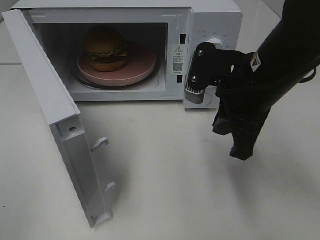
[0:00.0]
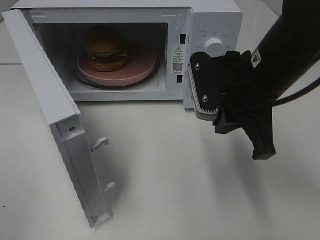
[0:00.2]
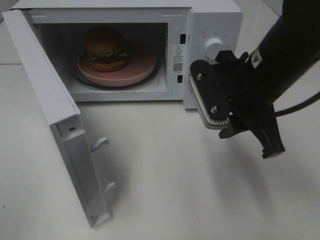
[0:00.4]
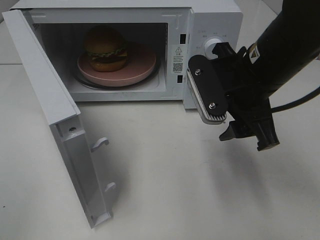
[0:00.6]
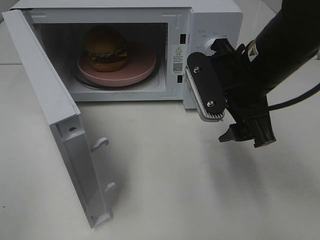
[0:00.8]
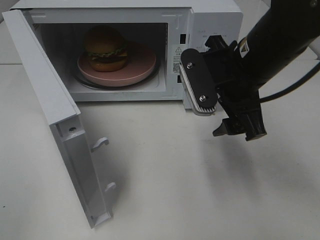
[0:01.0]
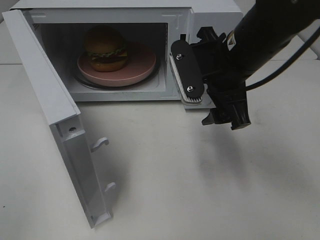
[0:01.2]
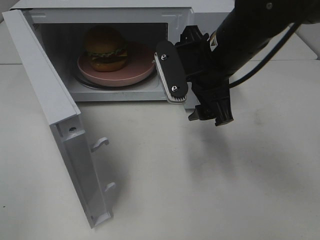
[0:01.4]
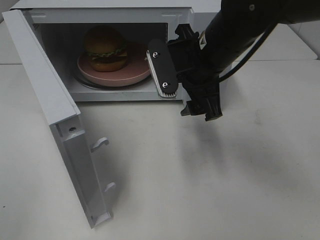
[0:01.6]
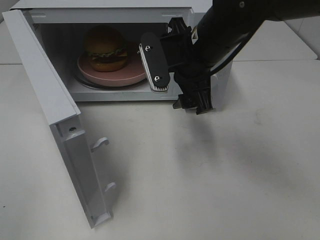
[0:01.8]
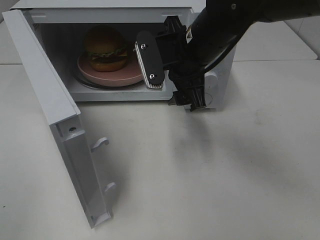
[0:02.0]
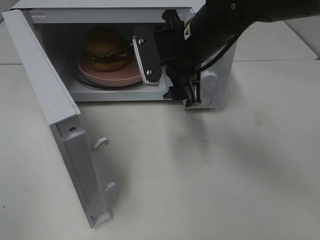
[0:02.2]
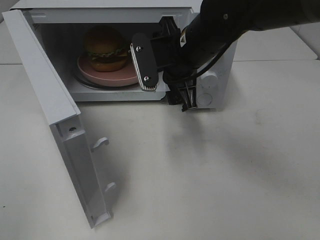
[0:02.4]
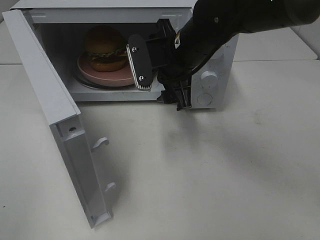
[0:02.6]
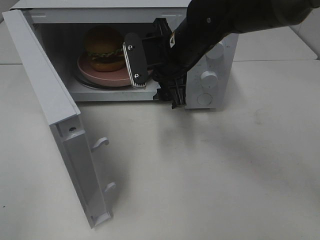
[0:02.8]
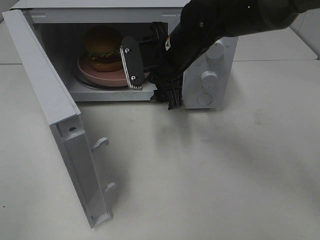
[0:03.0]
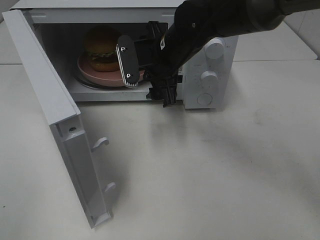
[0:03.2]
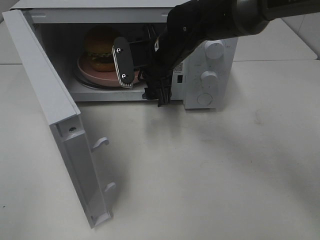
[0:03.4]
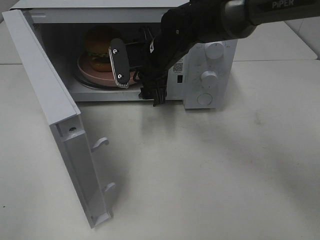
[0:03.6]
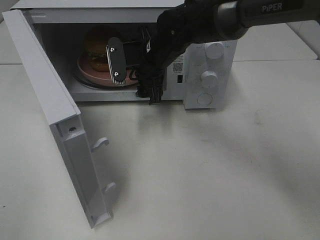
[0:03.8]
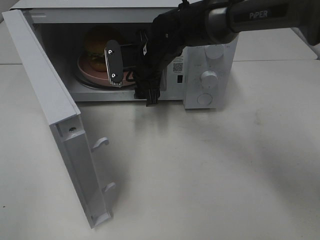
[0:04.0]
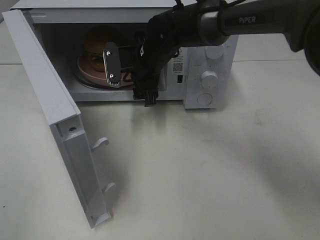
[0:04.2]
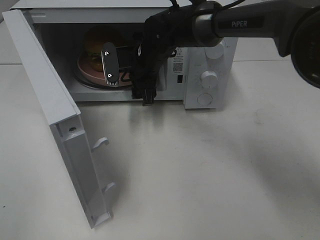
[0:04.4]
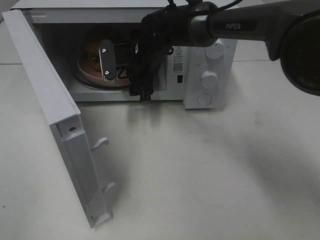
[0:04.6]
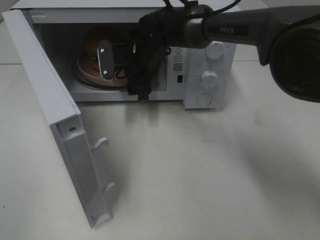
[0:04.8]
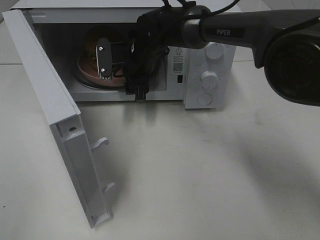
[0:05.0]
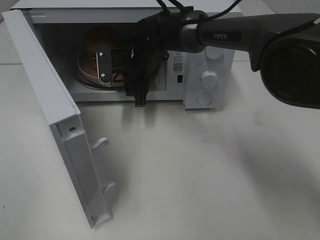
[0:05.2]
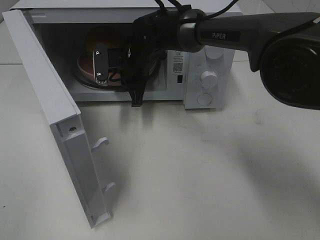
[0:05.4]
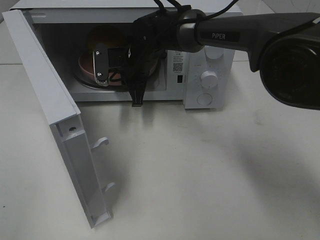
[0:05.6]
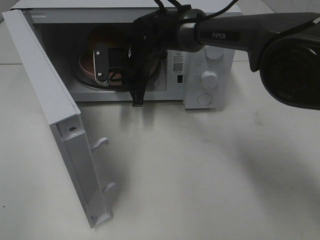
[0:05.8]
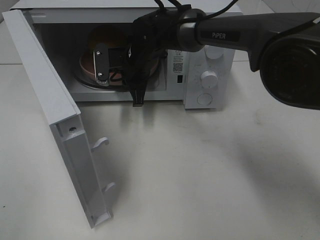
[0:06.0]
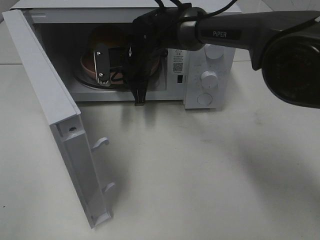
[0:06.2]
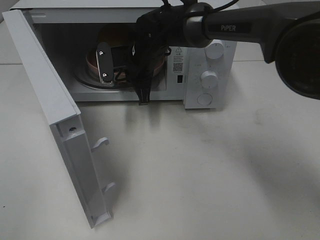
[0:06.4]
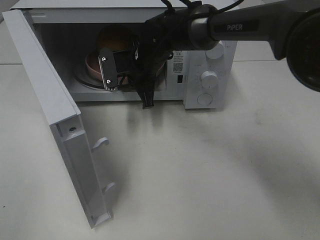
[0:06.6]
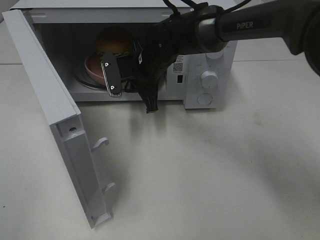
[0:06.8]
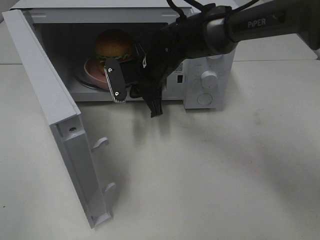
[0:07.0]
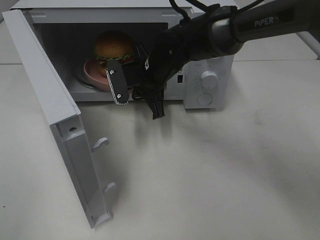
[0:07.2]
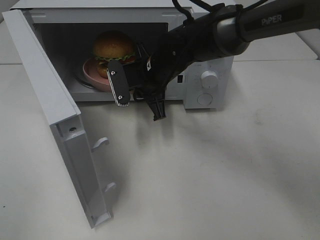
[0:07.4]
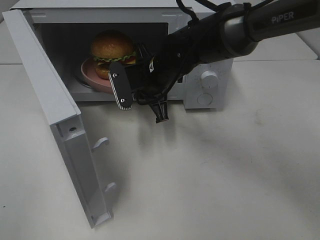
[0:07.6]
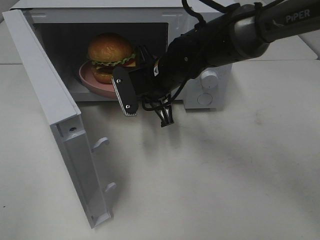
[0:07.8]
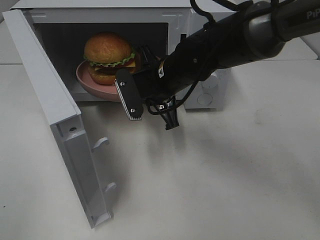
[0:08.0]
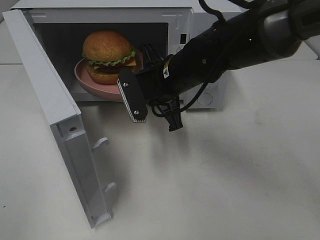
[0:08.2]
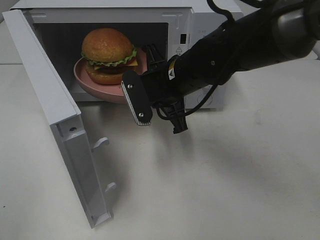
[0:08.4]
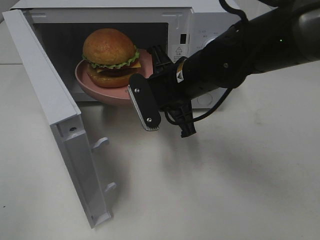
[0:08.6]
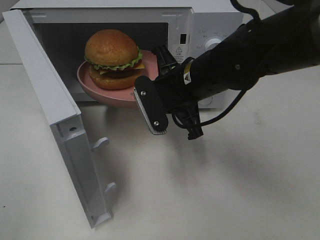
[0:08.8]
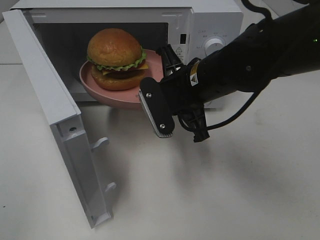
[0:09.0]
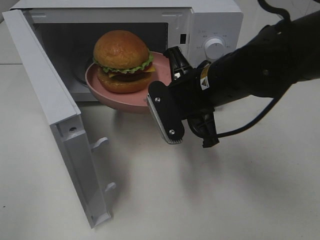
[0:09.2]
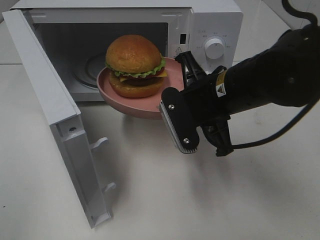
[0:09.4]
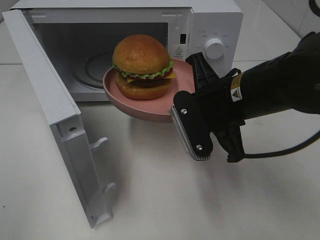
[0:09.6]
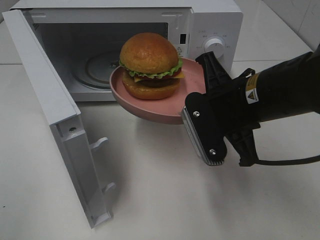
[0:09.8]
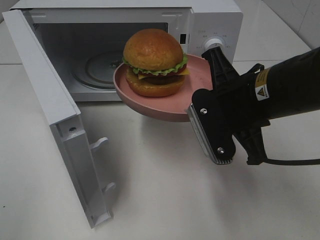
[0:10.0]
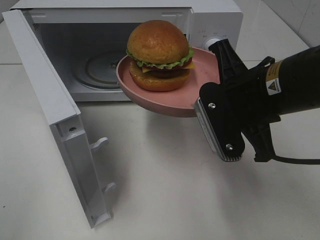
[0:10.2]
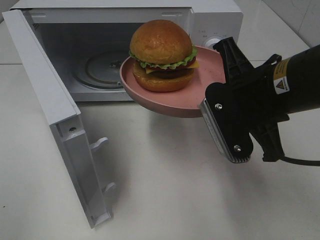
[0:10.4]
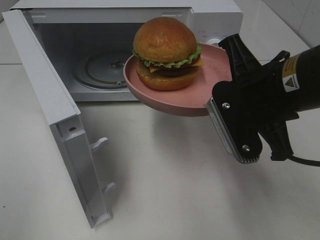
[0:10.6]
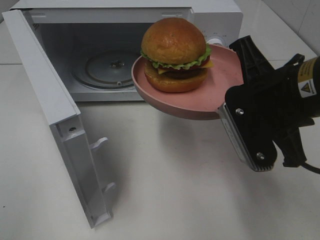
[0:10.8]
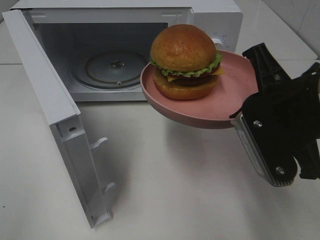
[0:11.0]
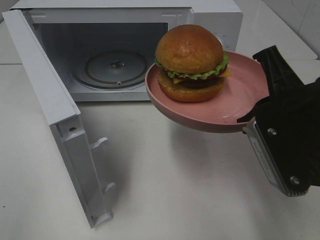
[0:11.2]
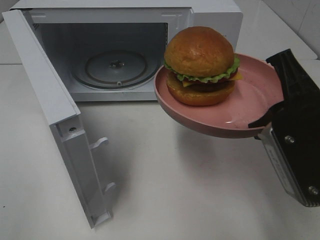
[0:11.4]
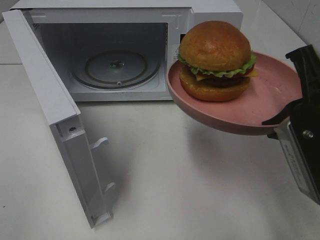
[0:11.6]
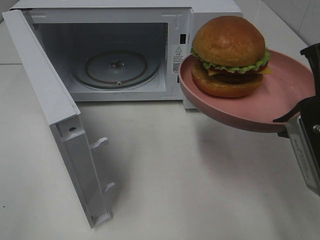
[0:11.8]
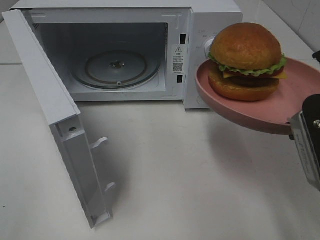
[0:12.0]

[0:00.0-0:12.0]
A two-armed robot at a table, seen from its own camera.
Task of the whole recording: Heat the burger.
Step, 0:00.0 to 0:05.8: Right hand: grab the plate with the hamburger.
0:00.0 to 0:01.6: The right gripper heads forward and to the left, covering some 10 cm, and opens.
0:01.6 to 0:03.0: The right gripper heads forward, covering roughly 5 cm.
0:03.0 to 0:04.4: The right gripper moves forward, some 5 cm.
0:04.4 to 0:06.0: The right gripper closes up.
0:06.0 to 0:07.6: The right gripper travels backward by about 5 cm.
0:07.6 to 0:09.0: The right gripper heads backward and to the right, covering roughly 10 cm.
0:09.0 to 0:10.4: The right gripper shifts roughly 10 cm backward and to the right.
0:10.4 to 0:12.0: The right gripper is displaced to the right and backward by about 10 cm.

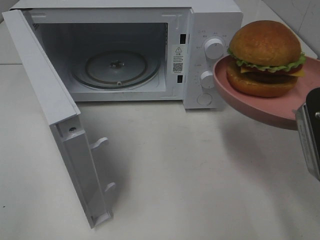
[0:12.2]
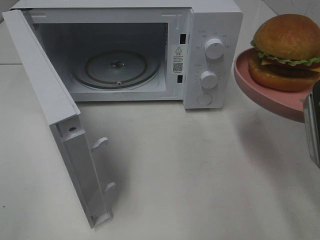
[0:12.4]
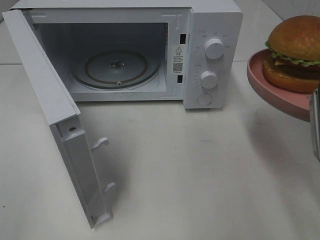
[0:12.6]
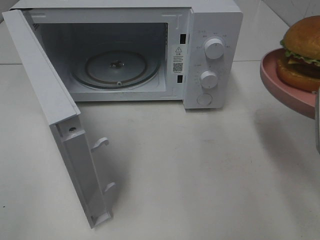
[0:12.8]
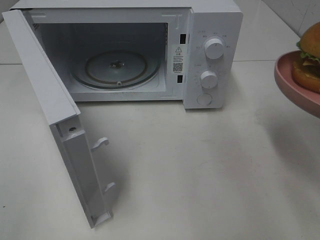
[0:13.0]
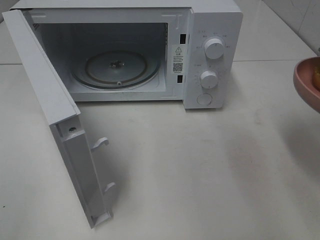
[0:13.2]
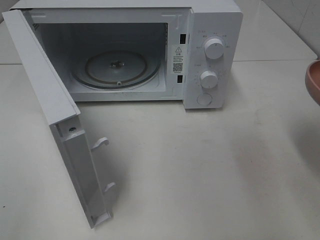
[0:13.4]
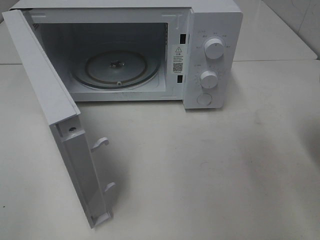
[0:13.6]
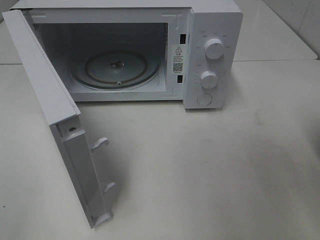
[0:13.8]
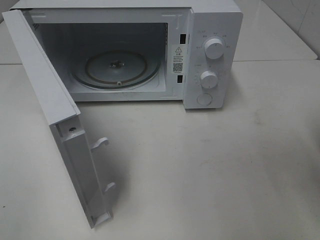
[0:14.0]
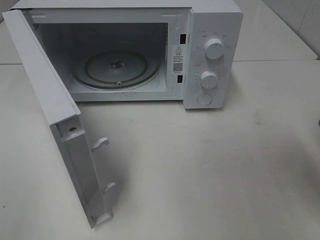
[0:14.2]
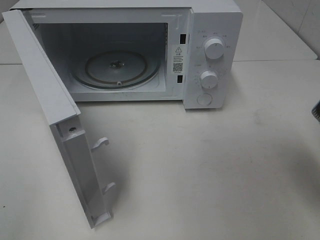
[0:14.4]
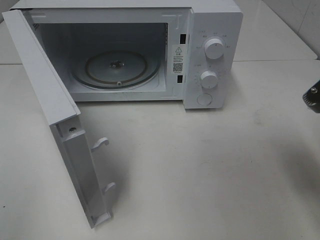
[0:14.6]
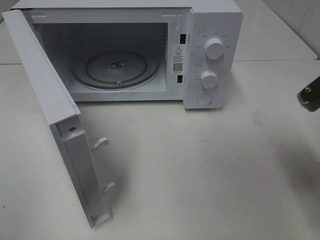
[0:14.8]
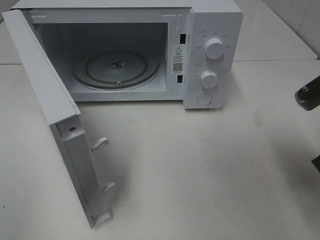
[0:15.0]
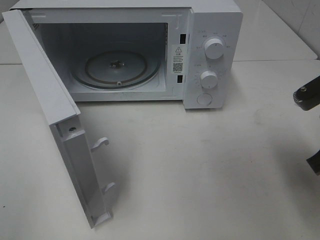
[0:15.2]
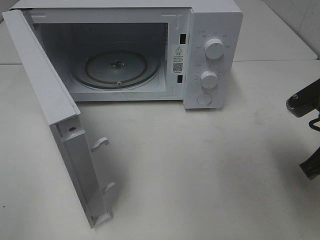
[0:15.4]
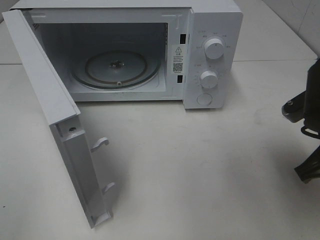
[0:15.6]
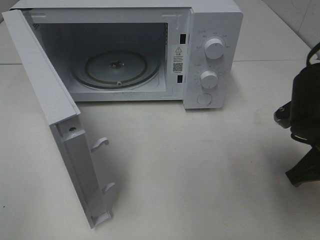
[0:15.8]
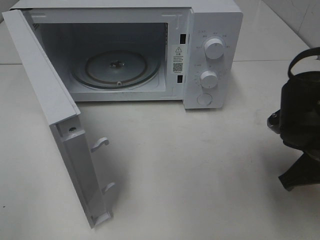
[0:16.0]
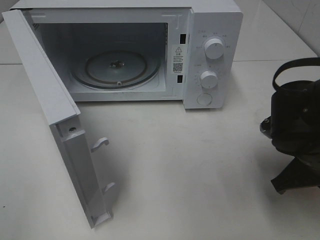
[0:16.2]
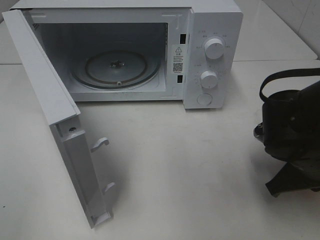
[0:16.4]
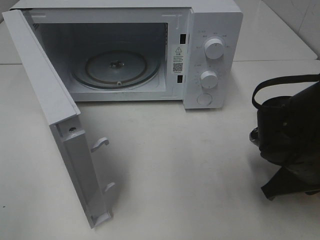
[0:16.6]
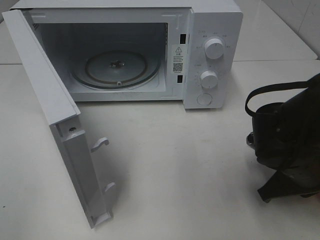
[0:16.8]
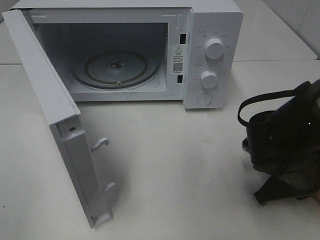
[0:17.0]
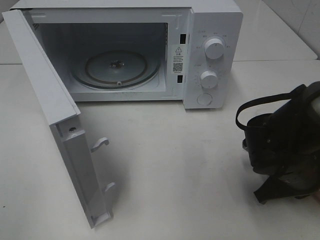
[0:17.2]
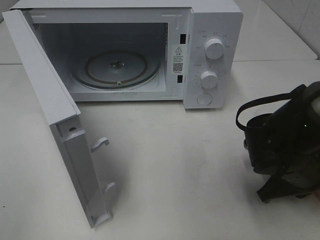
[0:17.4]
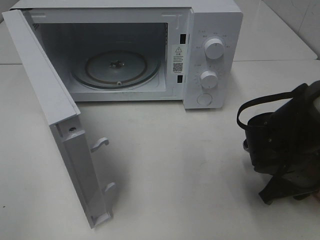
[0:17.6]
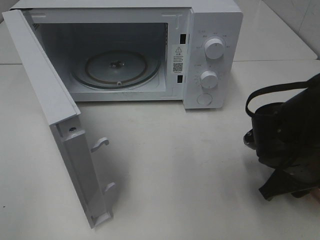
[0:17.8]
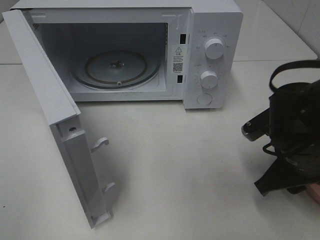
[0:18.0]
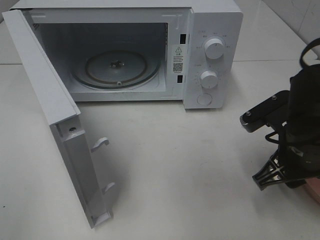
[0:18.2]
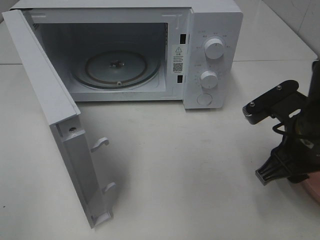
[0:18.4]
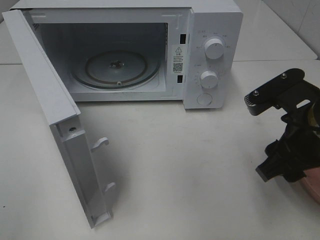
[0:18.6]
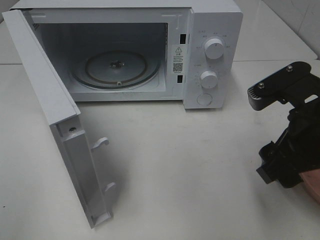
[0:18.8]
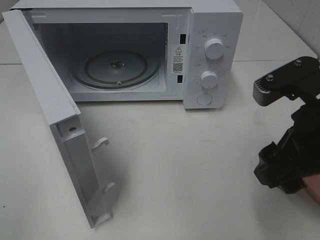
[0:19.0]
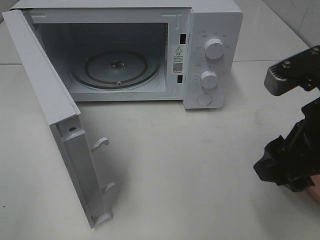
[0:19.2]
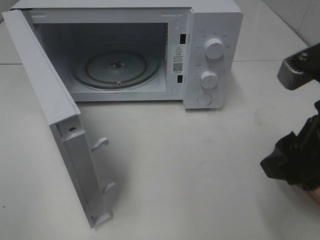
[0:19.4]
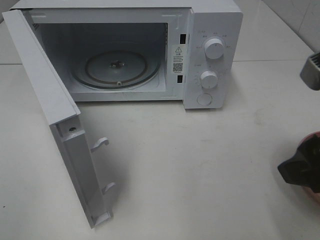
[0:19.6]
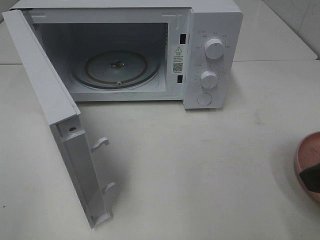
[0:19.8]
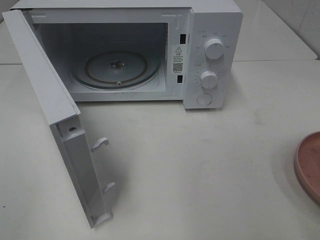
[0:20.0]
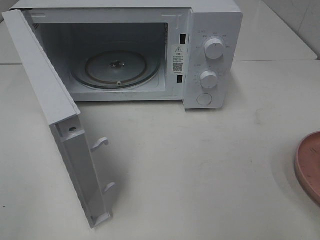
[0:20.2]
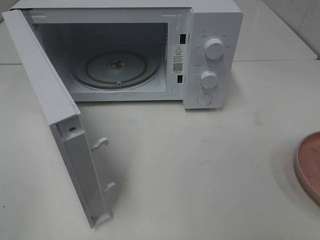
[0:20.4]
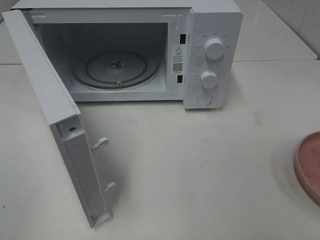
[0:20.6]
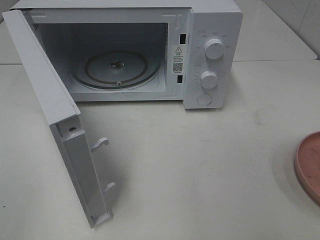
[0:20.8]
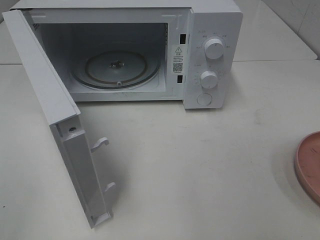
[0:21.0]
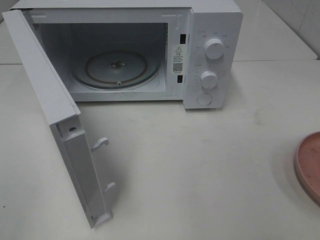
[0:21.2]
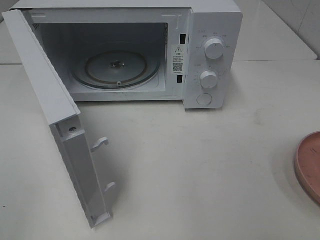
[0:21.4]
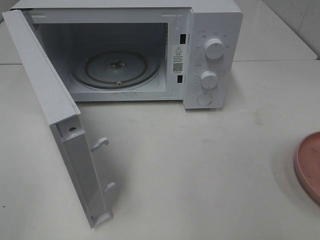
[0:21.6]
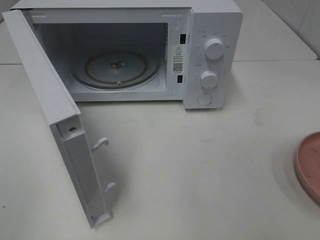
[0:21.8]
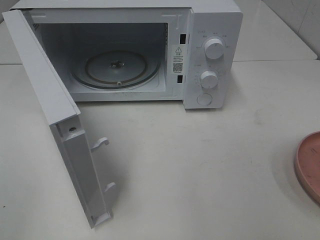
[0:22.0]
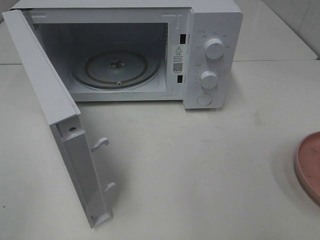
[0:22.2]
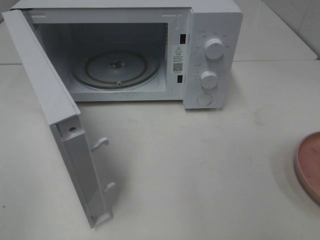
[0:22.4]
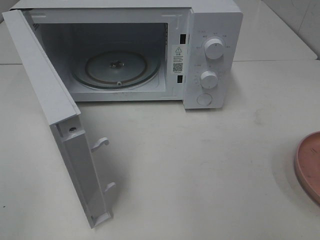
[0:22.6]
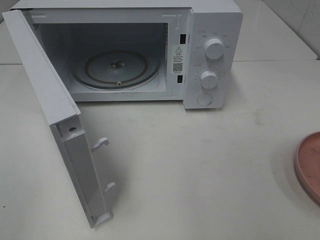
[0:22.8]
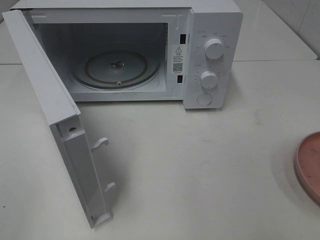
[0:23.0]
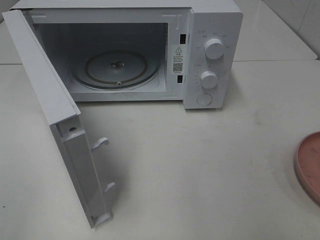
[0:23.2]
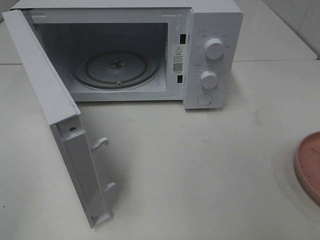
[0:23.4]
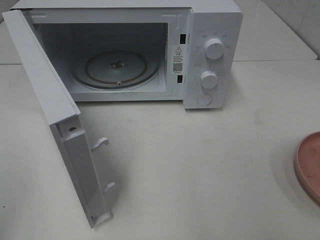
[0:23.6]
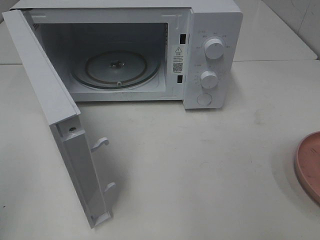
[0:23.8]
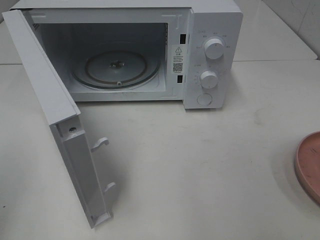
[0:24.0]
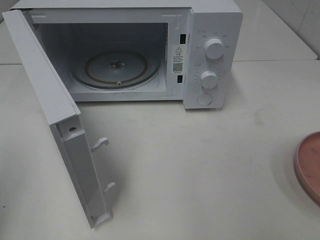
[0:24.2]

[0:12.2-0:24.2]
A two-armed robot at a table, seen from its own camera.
Task of the whole recording: Heat the burger.
Step, 0:12.2 to 0:18.2: Right hand: place the plate on the table.
0:13.8 to 0:15.2: The right gripper ends up about 5 cm from where it was.
0:15.2 to 0:16.6: The right gripper travels downward by roughly 10 cm.
0:16.6 to 0:18.2: The right gripper changes place by approximately 5 cm, and opens its fingers.
0:18.2 to 0:19.8: The right gripper heads upward and backward, covering some 15 cm.
0:19.8 to 0:21.2: The right gripper heads backward and to the right, covering some 15 cm.
0:21.2 to 0:22.6: Both grippers stay put.
